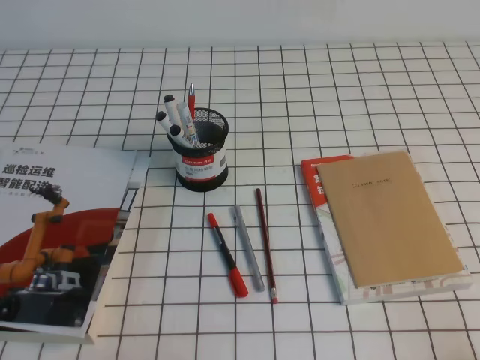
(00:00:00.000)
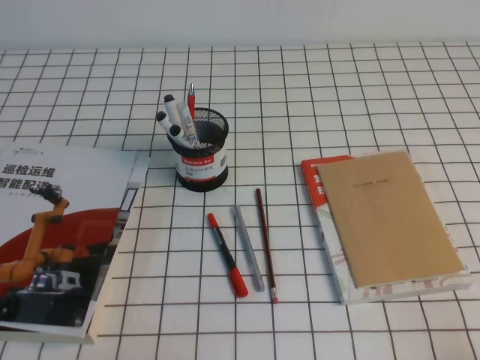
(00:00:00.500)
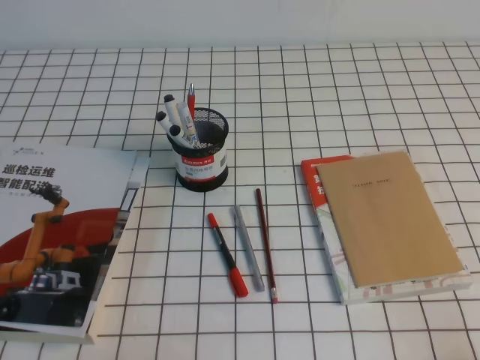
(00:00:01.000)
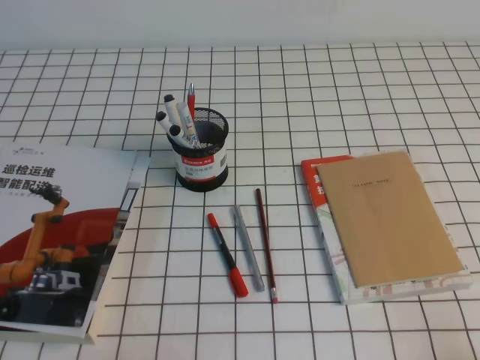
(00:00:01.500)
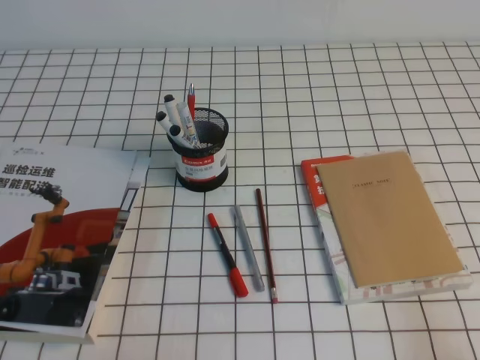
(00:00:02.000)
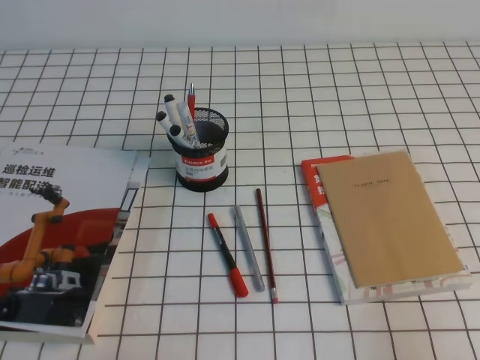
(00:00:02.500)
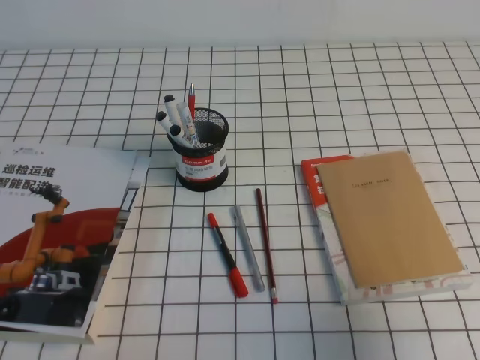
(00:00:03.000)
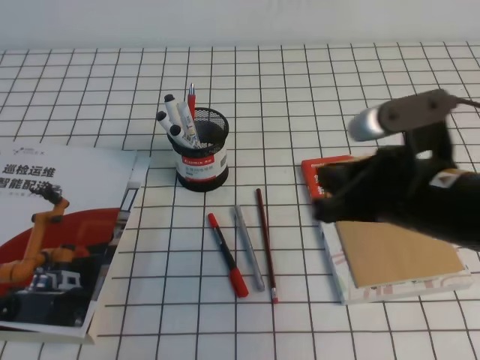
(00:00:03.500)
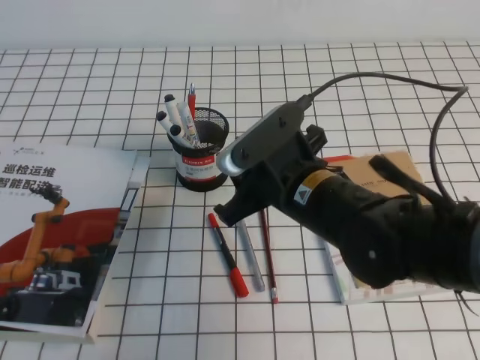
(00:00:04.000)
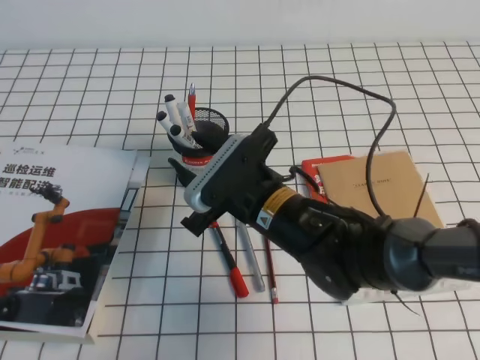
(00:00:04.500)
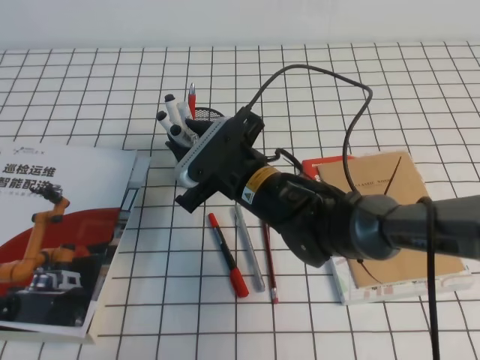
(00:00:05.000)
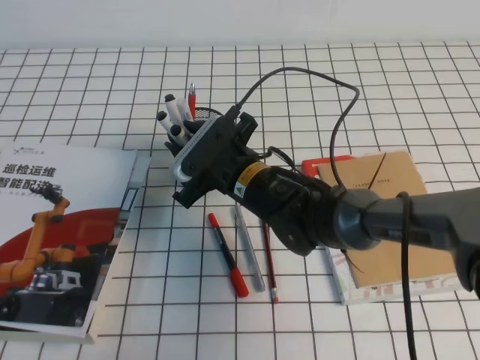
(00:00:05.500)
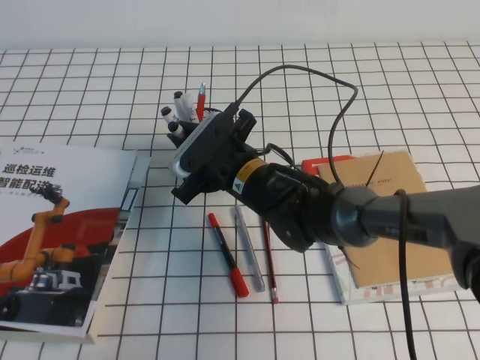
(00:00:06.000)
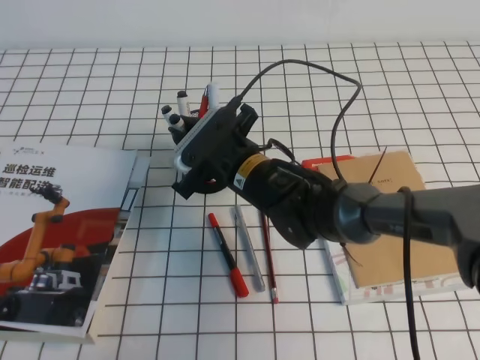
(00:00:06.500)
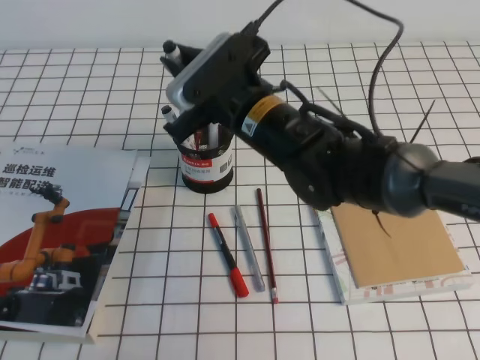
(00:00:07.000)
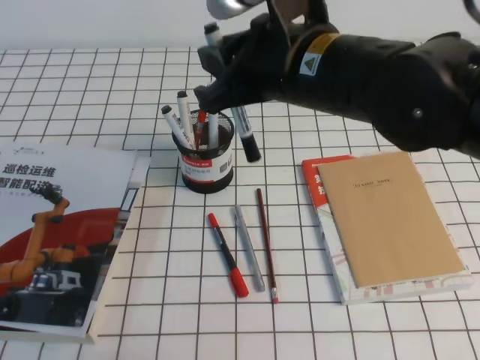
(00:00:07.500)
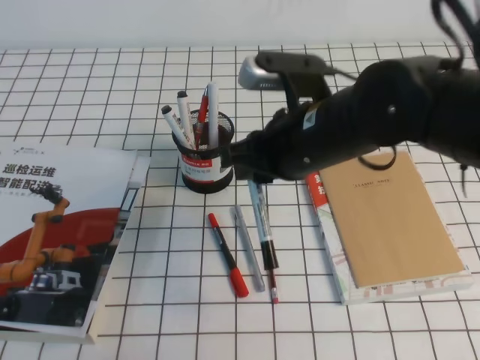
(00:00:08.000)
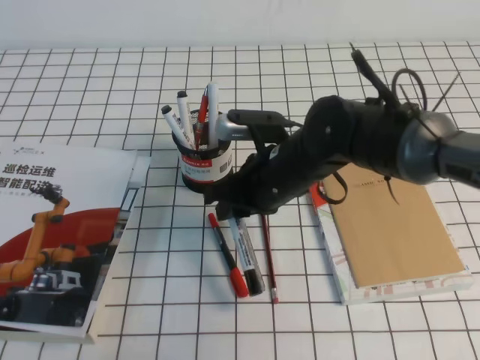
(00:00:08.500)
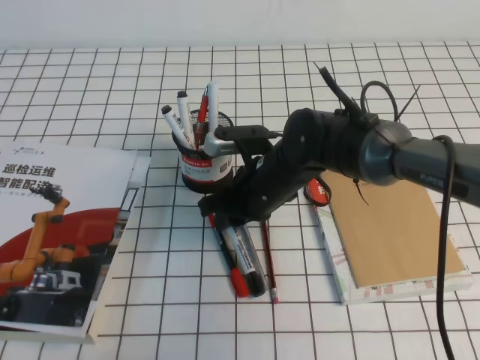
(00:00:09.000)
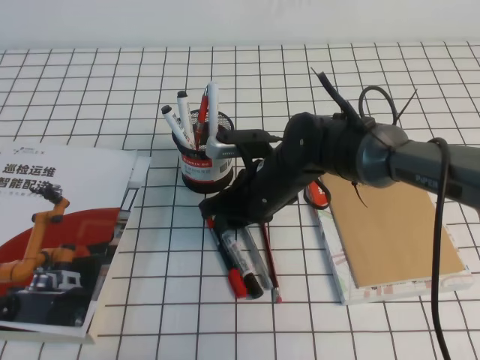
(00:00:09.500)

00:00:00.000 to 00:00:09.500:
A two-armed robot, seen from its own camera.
00:00:02.000 to 00:00:04.000: The right gripper travels to the left and forward by about 35 cm, and opens up.
00:00:04.000 to 00:00:05.500: The right gripper goes some 15 cm forward, to the left and downward, and opens its fingers.
00:00:05.500 to 00:00:07.500: The right gripper is displaced upward by some 20 cm, and closes up.
00:00:07.500 to 00:00:09.500: The right gripper heads downward, covering some 20 cm.

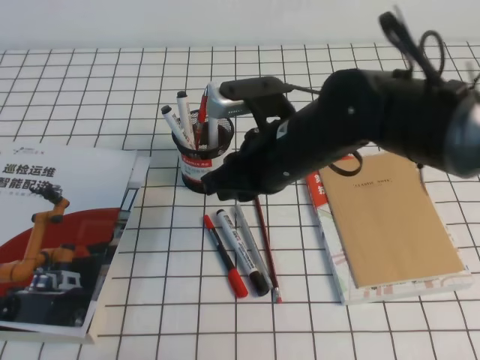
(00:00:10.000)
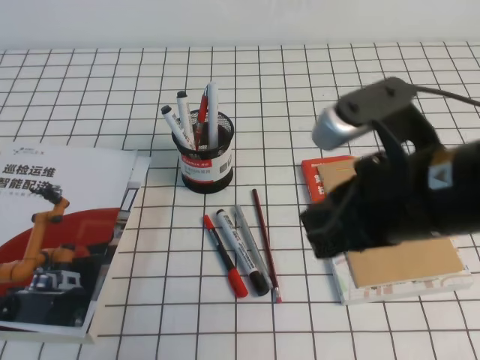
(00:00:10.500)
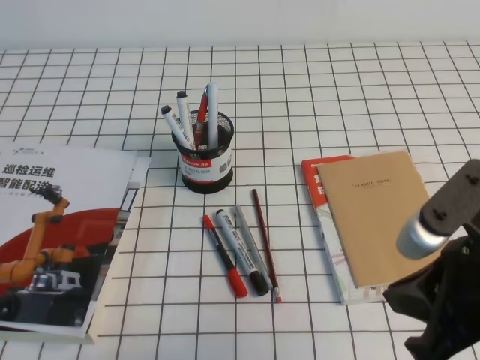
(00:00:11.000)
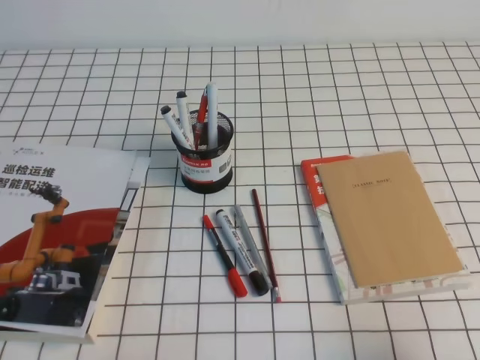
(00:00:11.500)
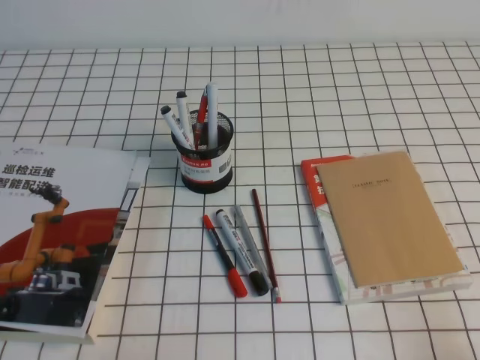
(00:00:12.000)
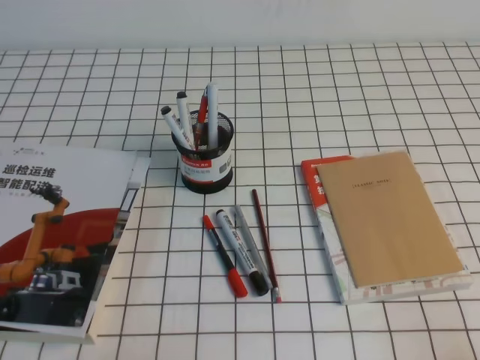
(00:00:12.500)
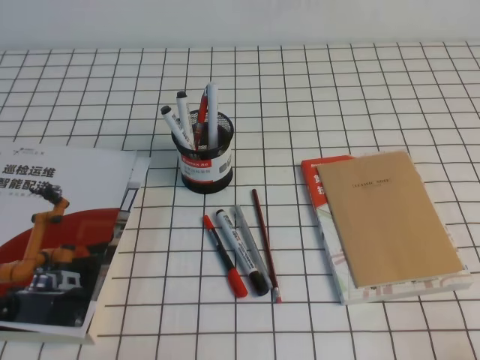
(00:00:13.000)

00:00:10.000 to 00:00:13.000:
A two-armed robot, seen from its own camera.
Step, 00:00:10.000 to 00:00:13.000: Pick up the pen from the pen holder.
00:00:10.000 to 00:00:11.500: The right gripper shifts roughly 30 cm to the right and backward, and closes up.
00:00:11.500 to 00:00:13.000: The right gripper shifts roughly 10 cm downward, backward and to the right.

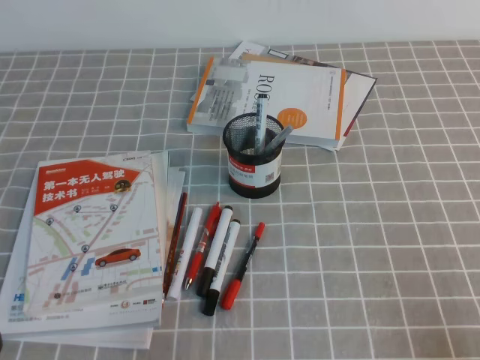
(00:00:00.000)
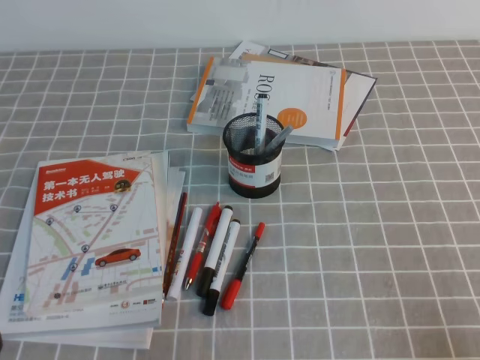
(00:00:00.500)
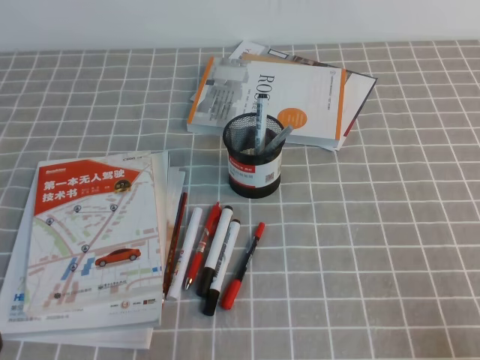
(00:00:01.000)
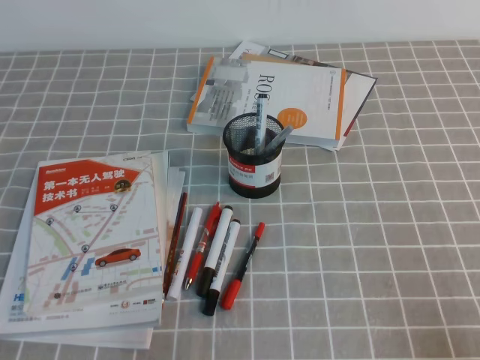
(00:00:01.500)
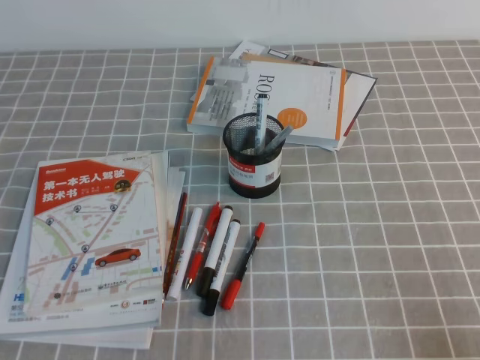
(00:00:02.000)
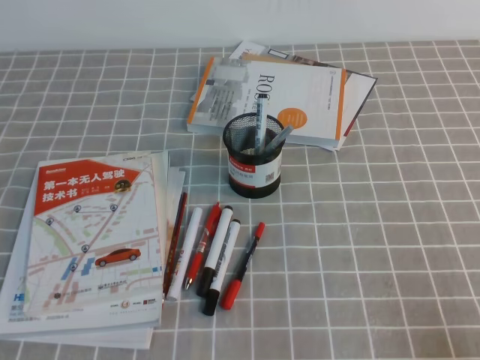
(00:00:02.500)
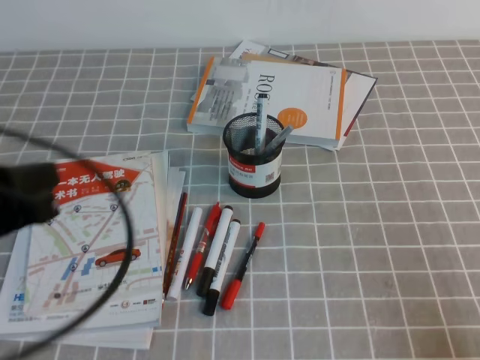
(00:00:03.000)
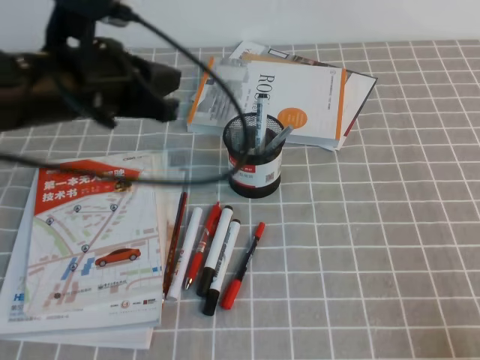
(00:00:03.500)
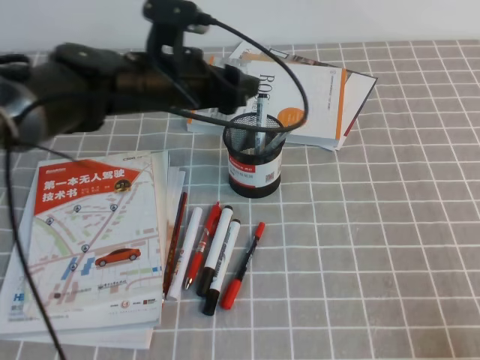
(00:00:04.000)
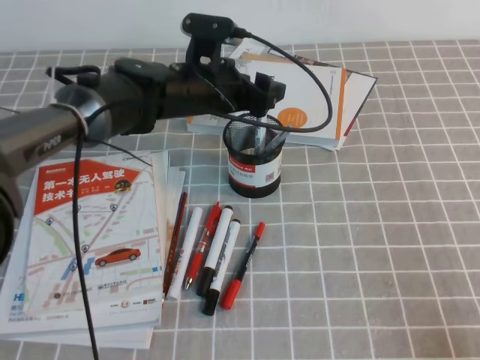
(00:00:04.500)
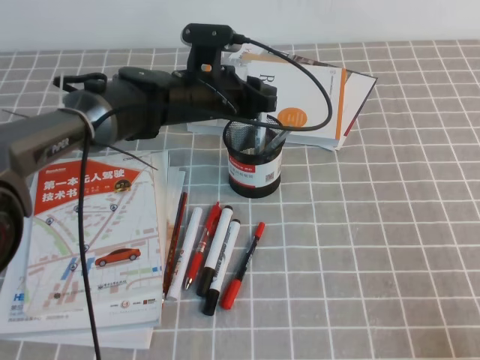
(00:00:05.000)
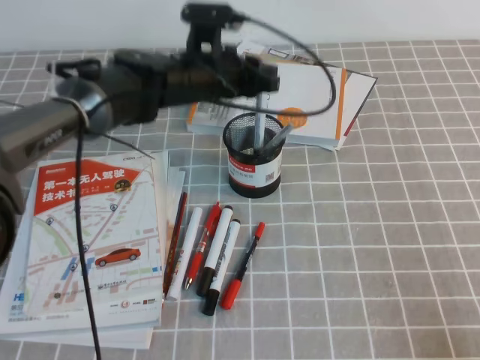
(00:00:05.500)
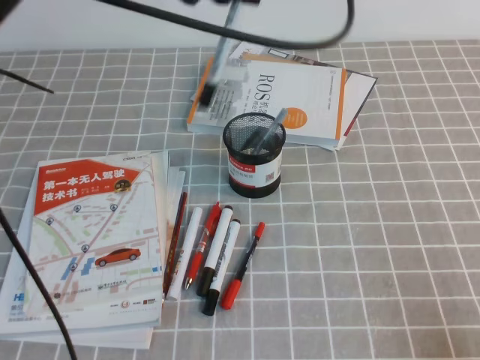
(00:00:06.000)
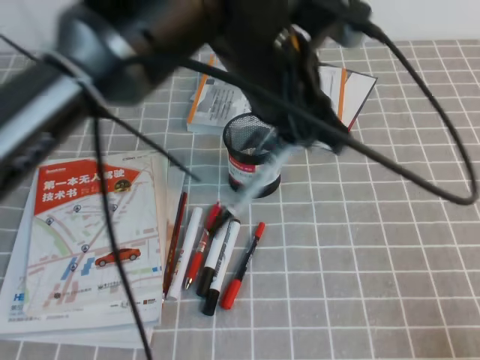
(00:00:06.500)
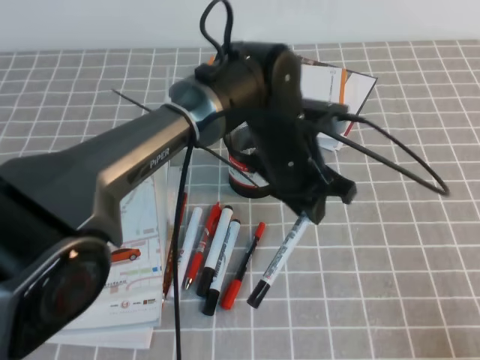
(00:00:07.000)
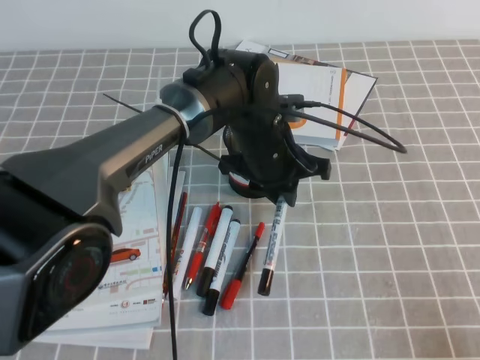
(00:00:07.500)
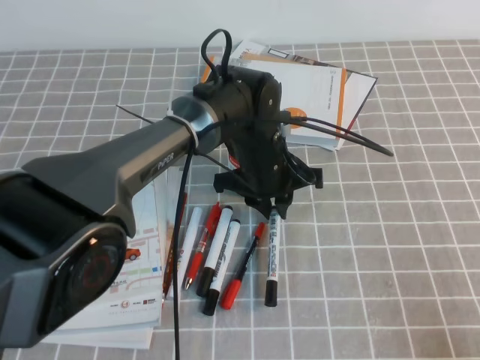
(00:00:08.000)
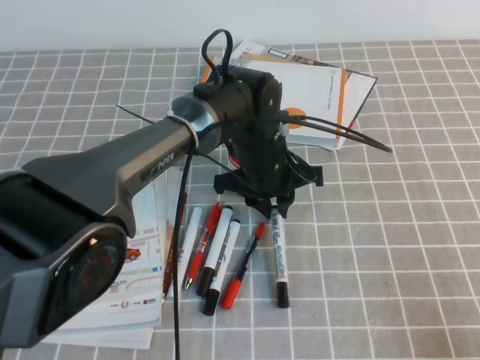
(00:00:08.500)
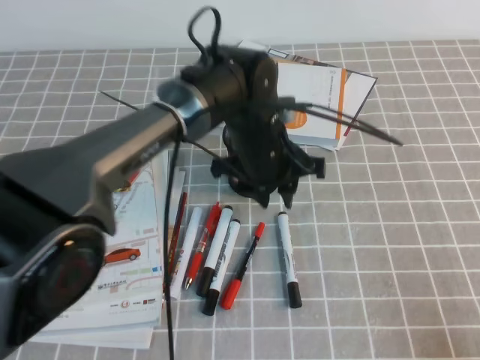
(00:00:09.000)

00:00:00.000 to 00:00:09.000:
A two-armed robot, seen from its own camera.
00:00:02.000 to 00:00:04.500: The left gripper travels forward and to the right by approximately 40 cm, and opens.
00:00:04.500 to 00:00:07.000: The left gripper travels backward and to the right by some 15 cm, moves approximately 15 cm upward and comes back, and closes up.

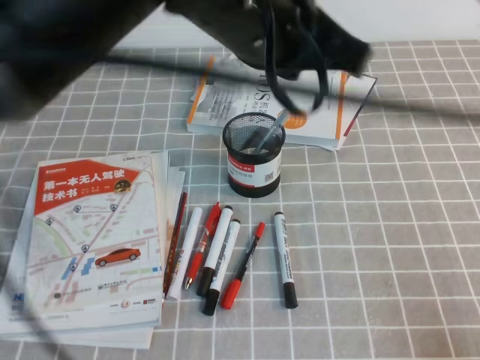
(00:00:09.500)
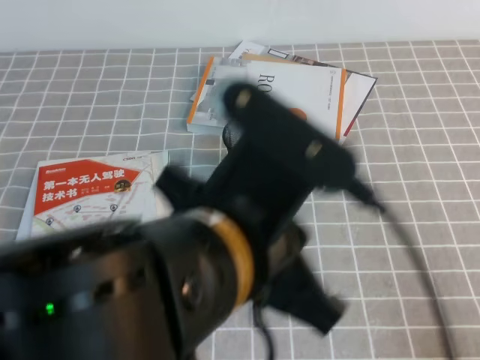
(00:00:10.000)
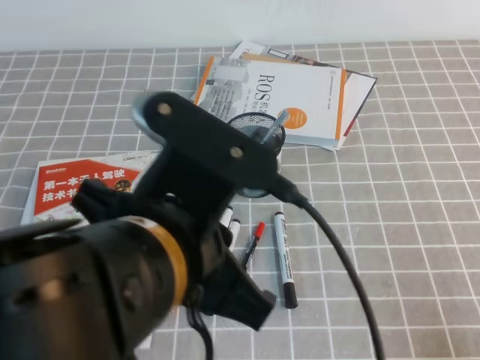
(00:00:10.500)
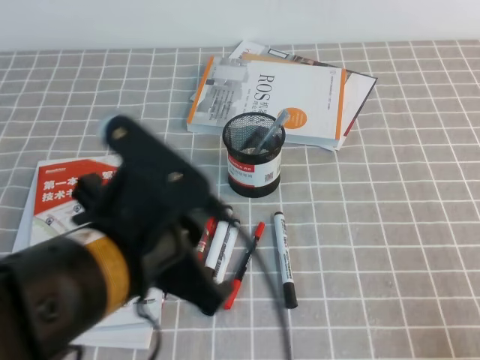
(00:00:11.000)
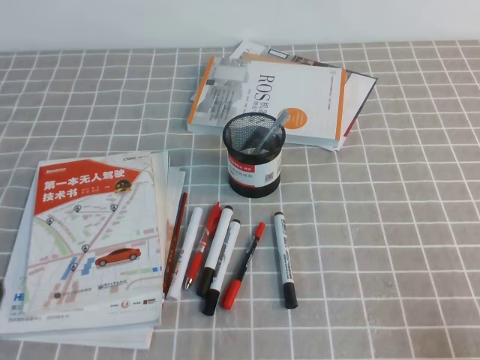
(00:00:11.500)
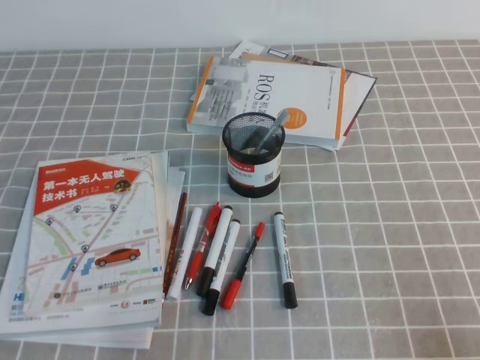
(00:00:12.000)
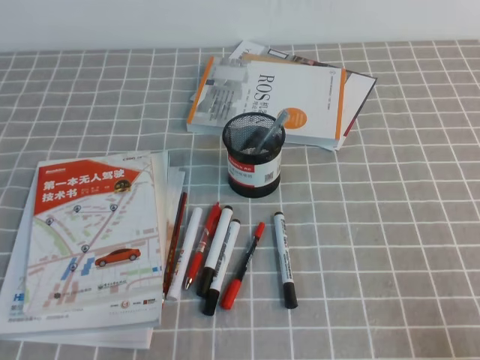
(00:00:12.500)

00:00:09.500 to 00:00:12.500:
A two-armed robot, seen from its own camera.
Step, 00:00:09.500 to 00:00:12.500: Pick up the pen from the pen holder.
00:00:09.500 to 00:00:11.000: The left gripper goes roughly 20 cm backward, to the left and downward.
00:00:11.000 to 00:00:12.500: The left gripper shifts roughly 25 cm to the left, downward and backward.
